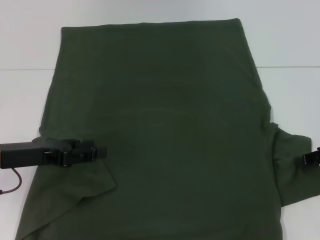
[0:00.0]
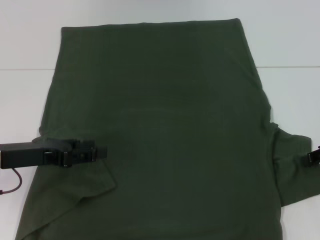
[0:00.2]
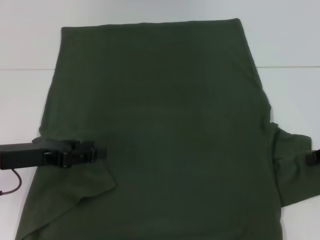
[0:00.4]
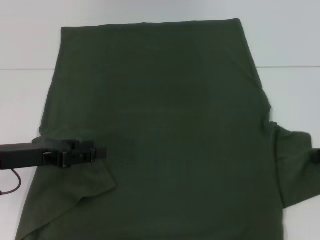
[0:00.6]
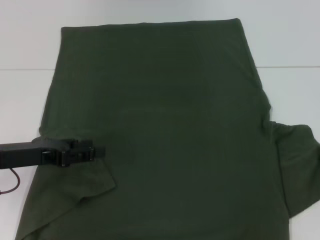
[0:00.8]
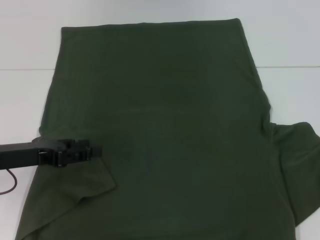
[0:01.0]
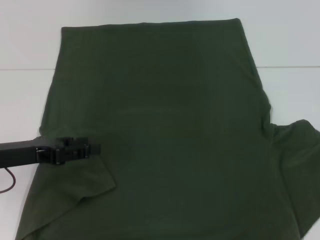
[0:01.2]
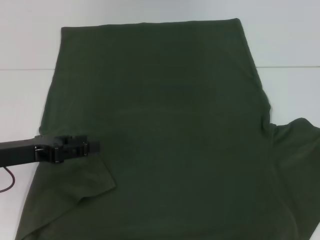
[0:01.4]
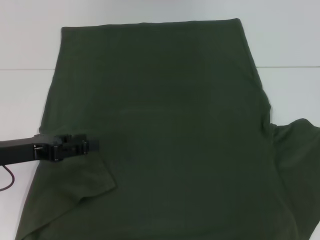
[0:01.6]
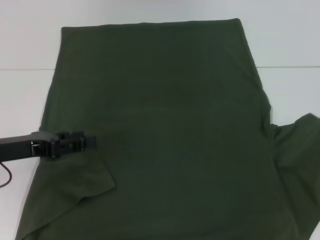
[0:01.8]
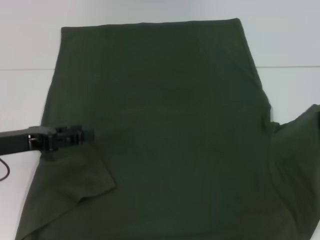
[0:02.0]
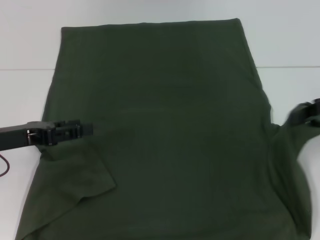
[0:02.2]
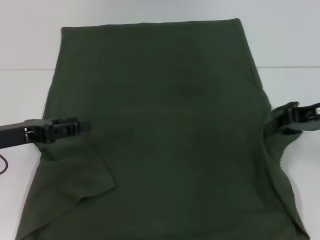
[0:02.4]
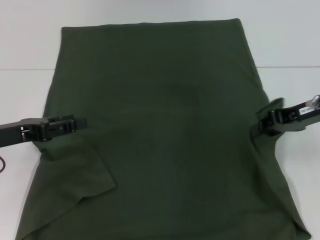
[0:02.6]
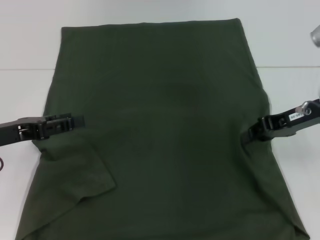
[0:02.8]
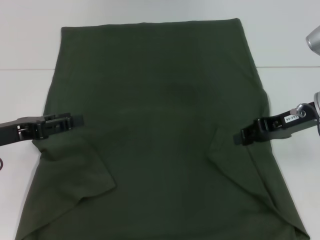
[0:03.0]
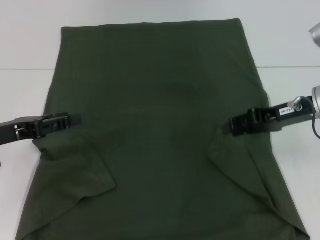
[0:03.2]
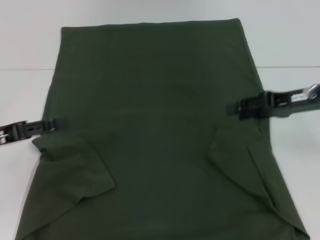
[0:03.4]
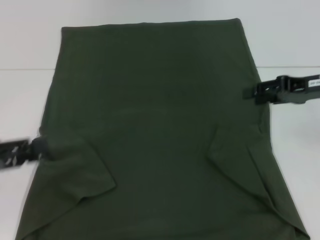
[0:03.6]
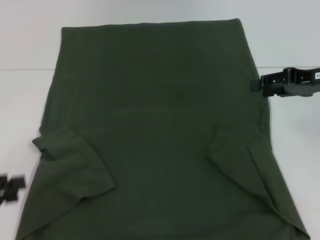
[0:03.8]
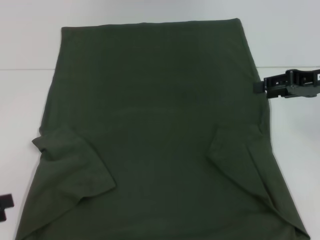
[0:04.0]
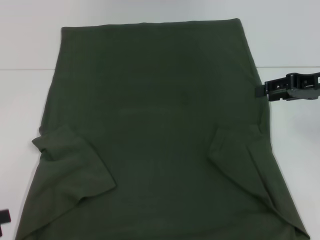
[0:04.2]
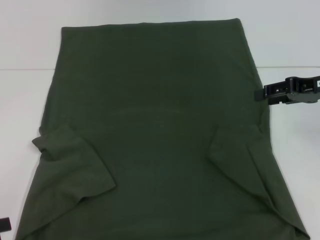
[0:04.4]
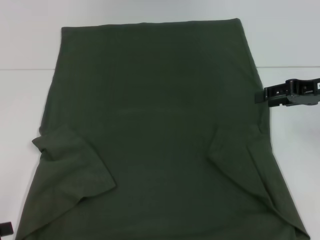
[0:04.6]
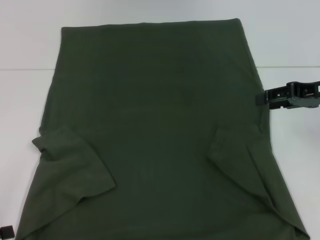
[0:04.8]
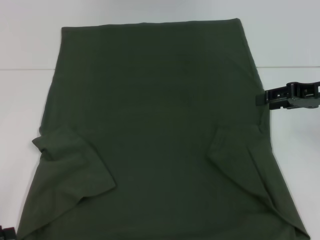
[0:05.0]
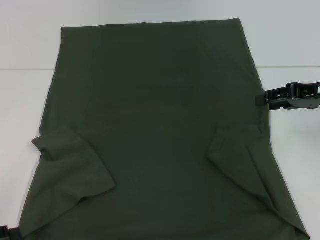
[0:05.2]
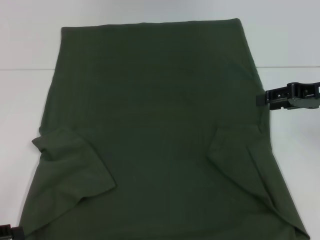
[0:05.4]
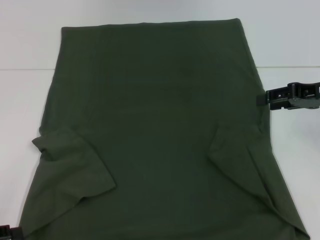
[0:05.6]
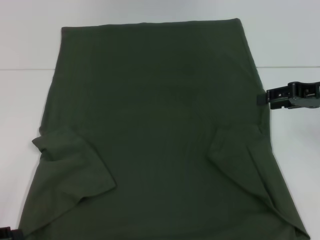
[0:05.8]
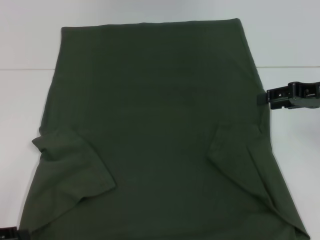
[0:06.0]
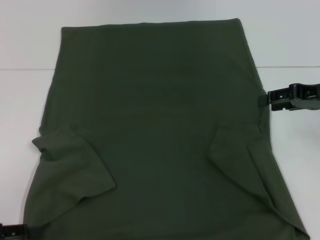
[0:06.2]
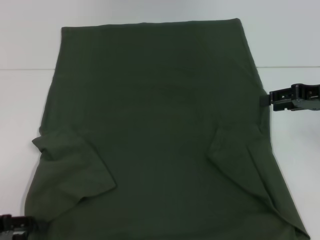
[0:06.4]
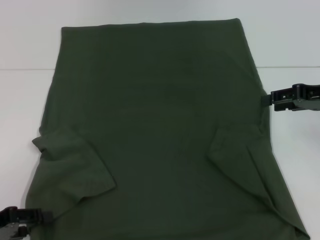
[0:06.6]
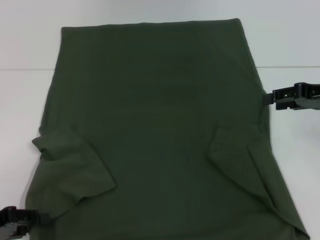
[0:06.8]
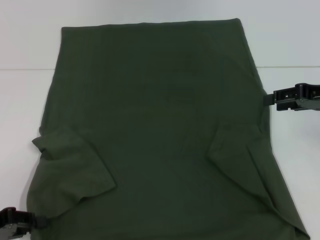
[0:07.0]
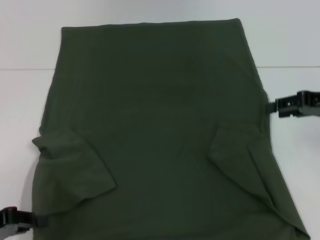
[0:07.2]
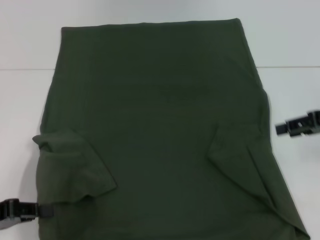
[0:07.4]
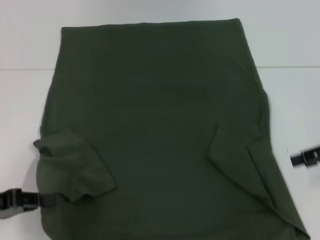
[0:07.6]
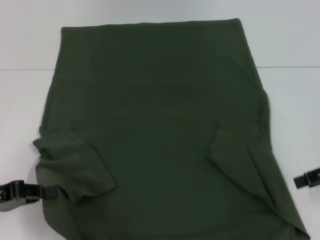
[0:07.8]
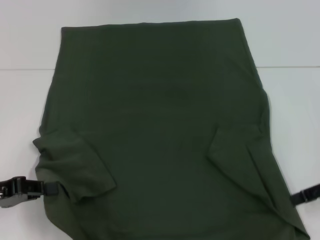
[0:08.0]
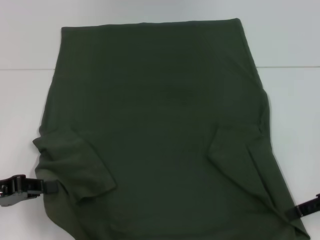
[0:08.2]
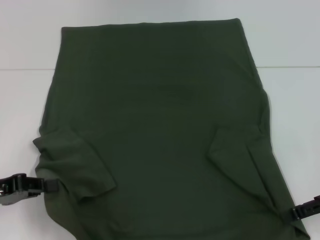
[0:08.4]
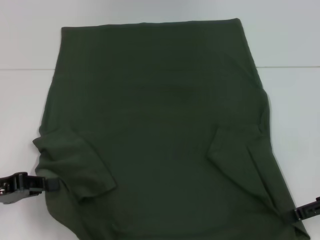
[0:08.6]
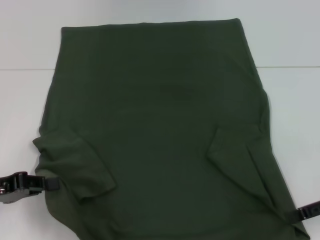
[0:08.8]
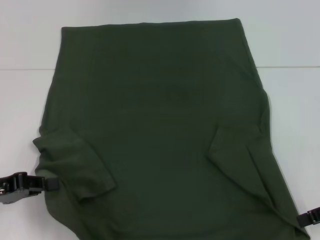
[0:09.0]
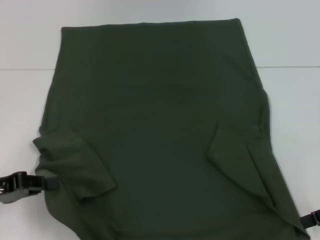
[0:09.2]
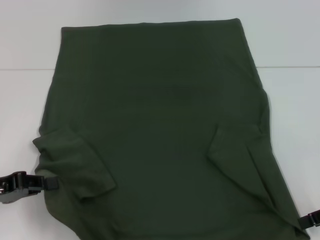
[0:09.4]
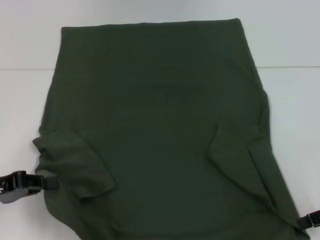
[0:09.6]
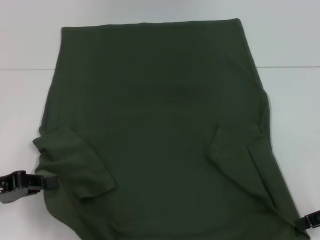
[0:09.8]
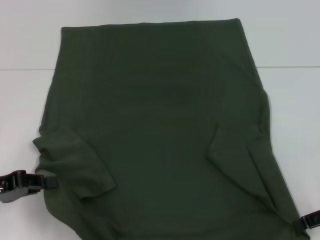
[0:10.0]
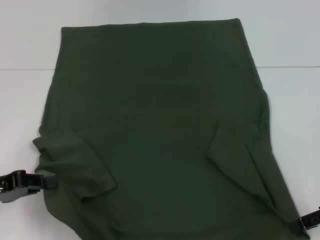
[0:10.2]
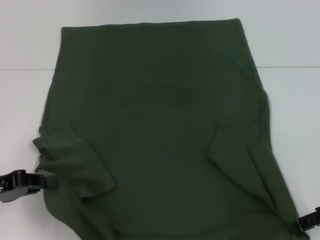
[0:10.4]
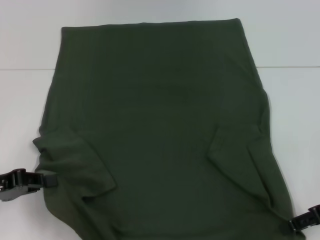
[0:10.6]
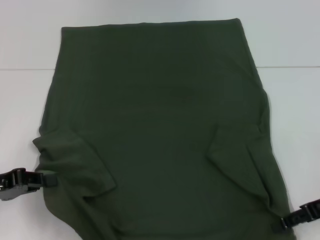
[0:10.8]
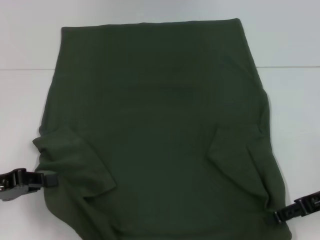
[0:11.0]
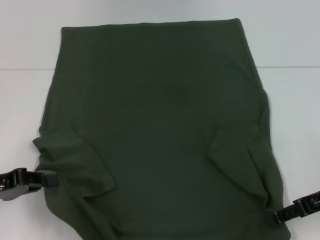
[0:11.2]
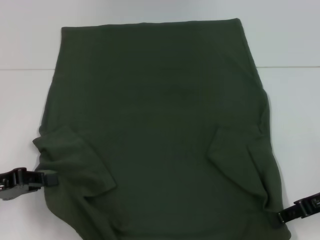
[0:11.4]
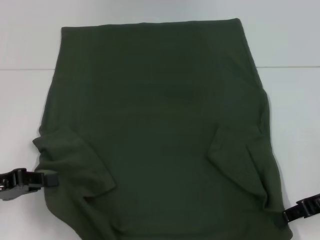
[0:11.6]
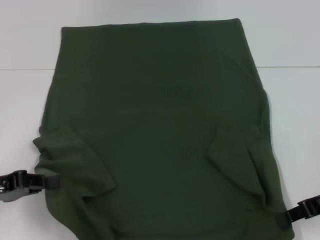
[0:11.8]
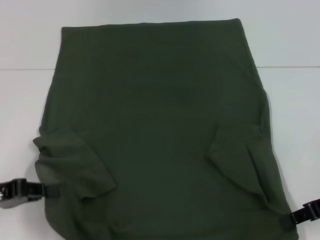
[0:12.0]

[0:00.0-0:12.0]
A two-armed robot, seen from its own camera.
Step, 0:00.0 to 0:03.2: Fold the bottom right sleeve with your right hand.
Step, 0:03.4 to 0:07.0: Grab the bottom left corner with your left hand.
Step, 0:07.2 to 0:11.6: Grab the bottom right corner with your right hand.
0:00.0 to 0:01.6: The right gripper closes its fingers.
0:01.6 to 0:03.0: The right gripper goes about 10 cm to the left.
0:03.0 to 0:04.4: The left gripper is displaced backward and to the left by approximately 15 cm. The right gripper changes place by about 5 cm, and opens up.
0:04.4 to 0:06.0: There are only small adjustments of the grippers.
0:06.0 to 0:07.6: The right gripper moves roughly 5 cm; the left gripper changes place by roughly 5 cm, and closes.
0:07.6 to 0:09.0: The right gripper is displaced backward by some 5 cm.
0:09.0 to 0:10.4: There are only small adjustments of the grippers.
0:10.4 to 0:12.0: The right gripper closes up.

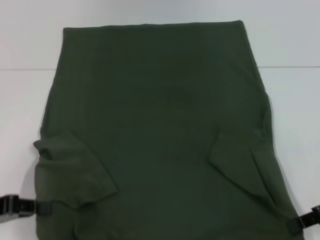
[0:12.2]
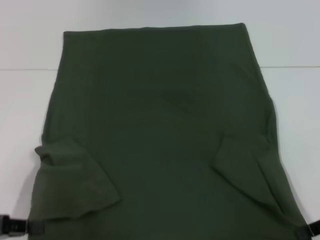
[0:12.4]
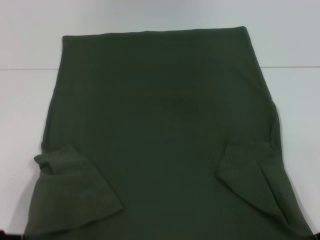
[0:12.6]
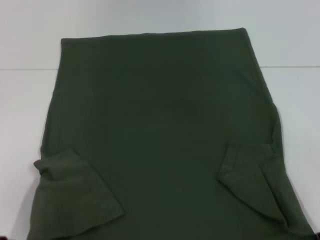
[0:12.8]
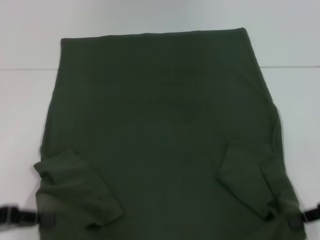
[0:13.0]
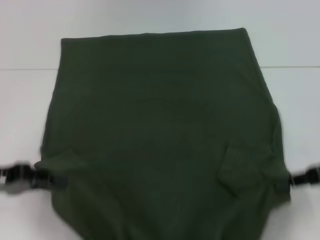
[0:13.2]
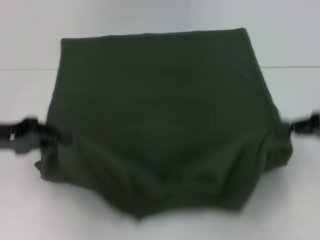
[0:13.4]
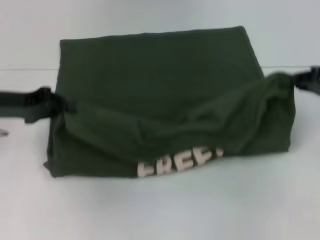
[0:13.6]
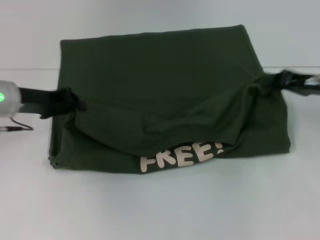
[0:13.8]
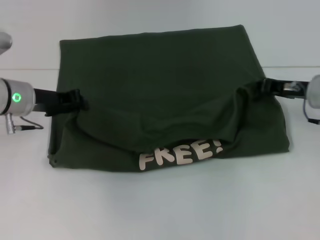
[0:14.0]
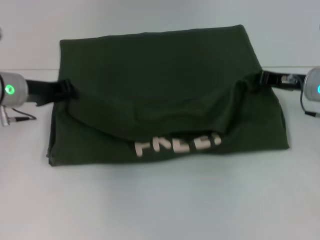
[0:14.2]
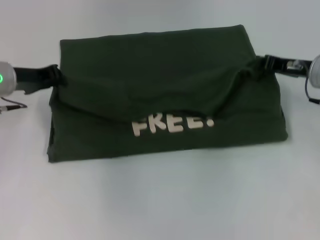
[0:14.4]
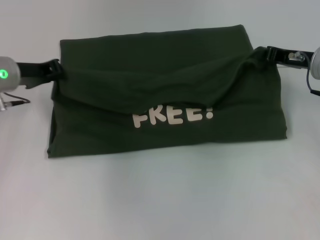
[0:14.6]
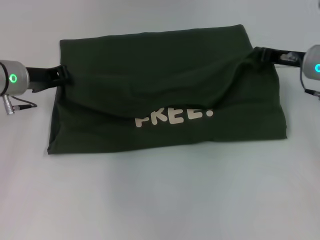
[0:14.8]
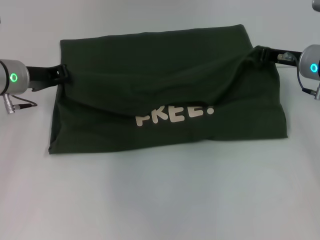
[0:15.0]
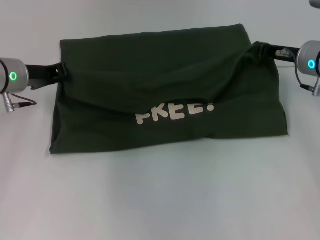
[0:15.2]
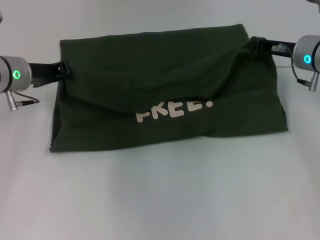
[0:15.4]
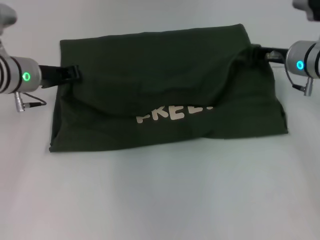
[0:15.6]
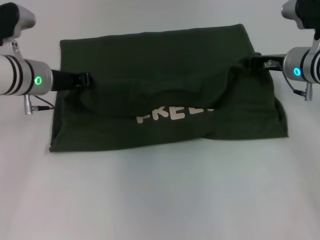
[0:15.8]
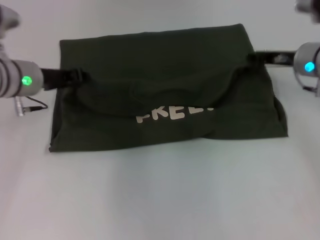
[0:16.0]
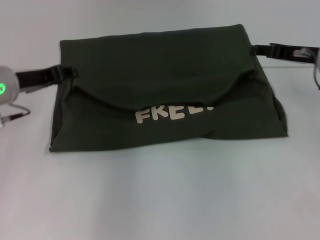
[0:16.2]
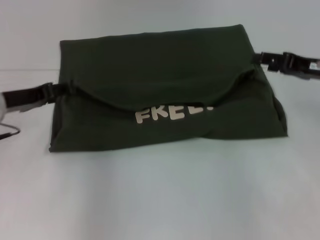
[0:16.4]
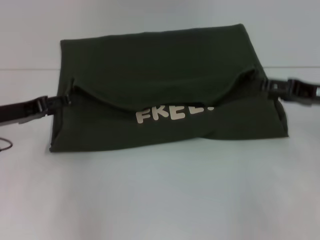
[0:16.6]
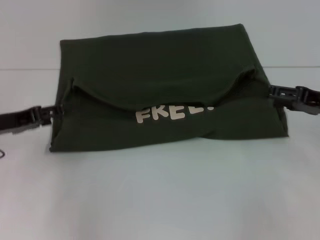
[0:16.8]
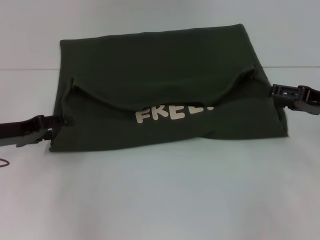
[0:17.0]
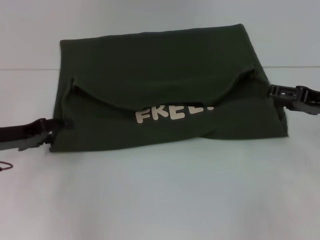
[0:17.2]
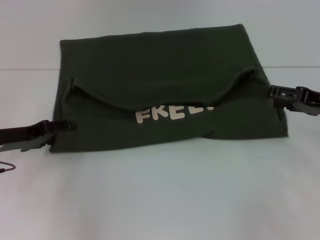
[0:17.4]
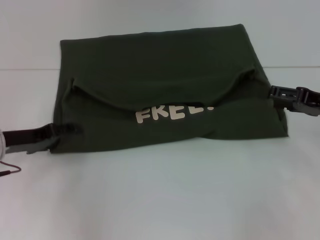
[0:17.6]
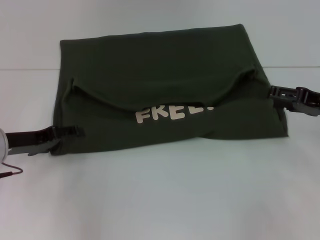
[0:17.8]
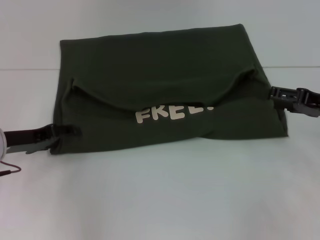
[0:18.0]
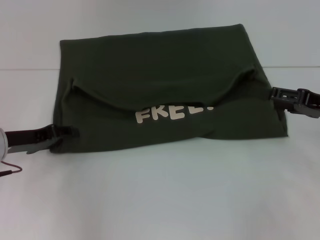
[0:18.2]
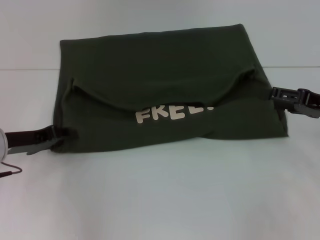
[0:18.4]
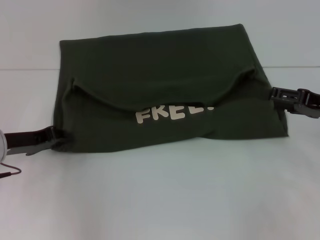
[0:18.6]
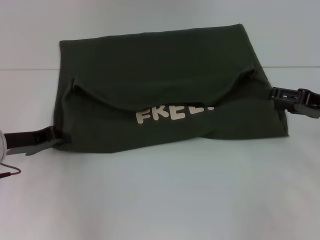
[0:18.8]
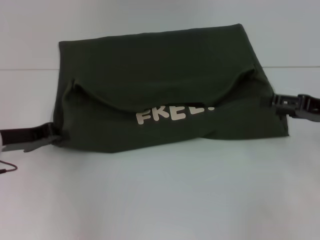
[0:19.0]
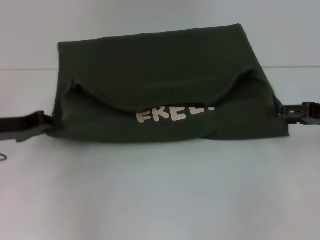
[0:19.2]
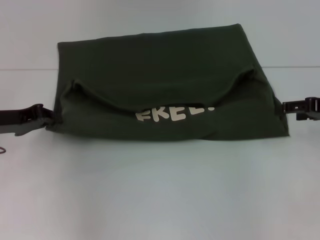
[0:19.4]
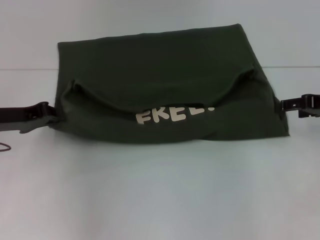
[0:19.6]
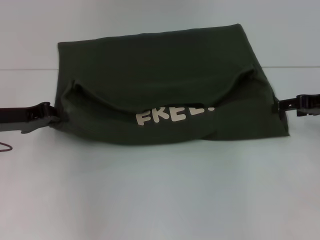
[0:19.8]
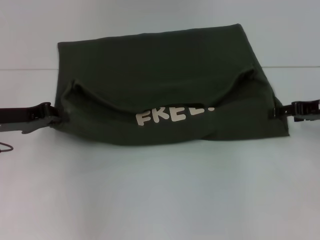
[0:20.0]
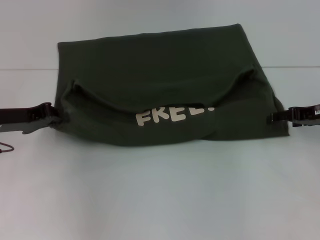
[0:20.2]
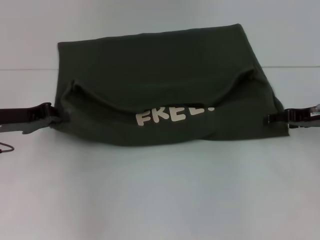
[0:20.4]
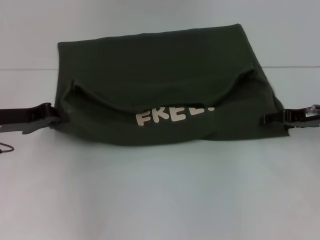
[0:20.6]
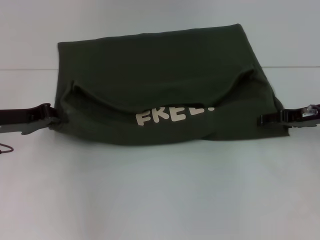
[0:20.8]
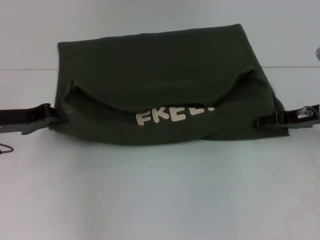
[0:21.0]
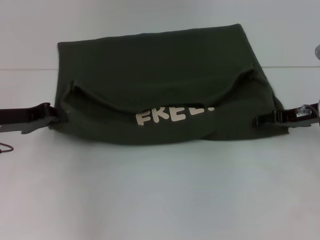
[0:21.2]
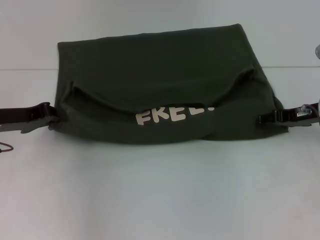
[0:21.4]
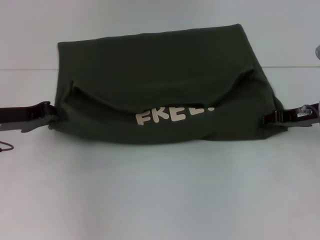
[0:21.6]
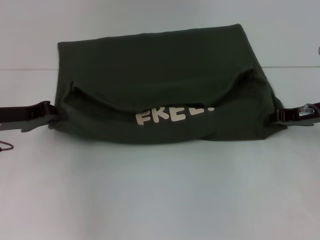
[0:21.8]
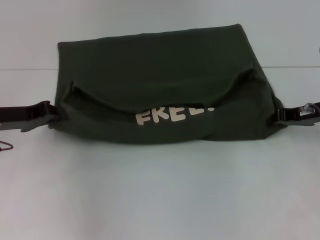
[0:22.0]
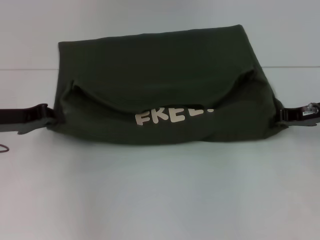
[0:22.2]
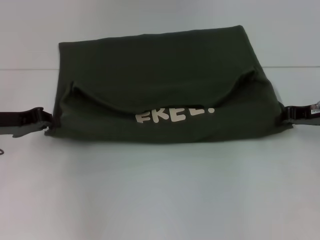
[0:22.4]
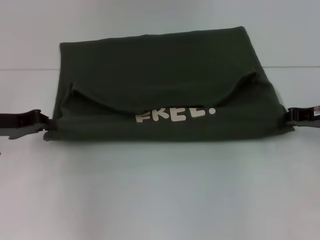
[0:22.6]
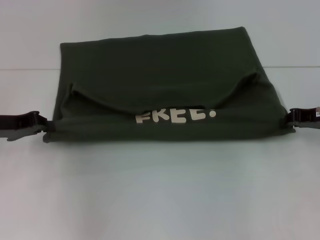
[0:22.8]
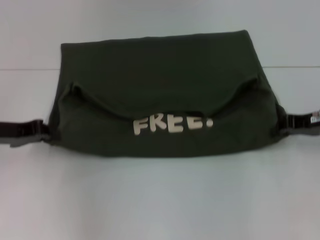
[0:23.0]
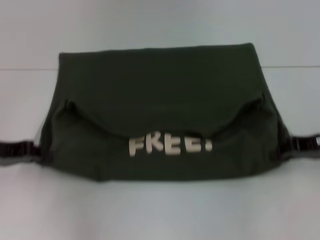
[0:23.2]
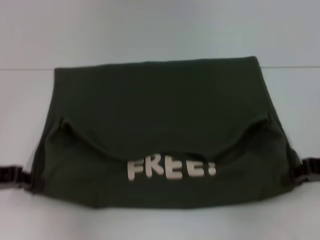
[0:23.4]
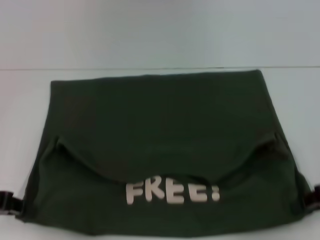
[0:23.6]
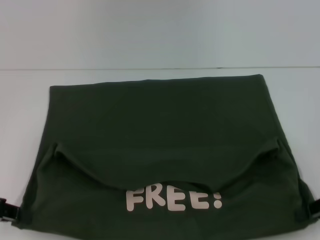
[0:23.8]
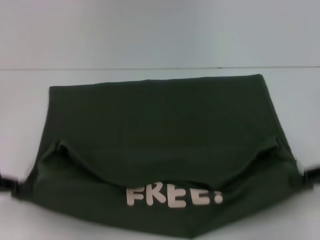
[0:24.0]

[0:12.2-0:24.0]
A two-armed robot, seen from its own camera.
Step, 0:12.2 to 0:16.0: Fold the clothes with your left hand.
Step, 0:12.2 to 0:16.0: Fold the clothes with your right hand.
Step, 0:16.2 to 0:23.8: Pull the clothes with your left hand.
Step, 0:16.2 to 0:23.8: Pull the clothes with your right hand.
0:12.2 to 0:13.6: Both grippers move forward and upward, about 10 cm.
0:13.6 to 0:15.2: The left gripper shifts about 5 cm forward, while the right gripper is displaced to the left and forward by roughly 10 cm.
0:15.2 to 0:16.6: The left gripper is displaced backward by about 10 cm, and opens its fingers. The right gripper heads backward and to the right, covering some 10 cm, and opens up.
0:16.6 to 0:18.2: The grippers move only a little.
0:18.2 to 0:19.6: The left gripper closes its fingers.
0:19.6 to 0:21.0: The right gripper ends up approximately 5 cm from where it was.
0:21.0 to 0:22.6: The right gripper closes its fingers.
0:22.6 to 0:24.0: Both grippers move backward, some 10 cm.
